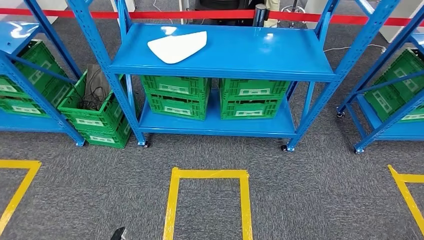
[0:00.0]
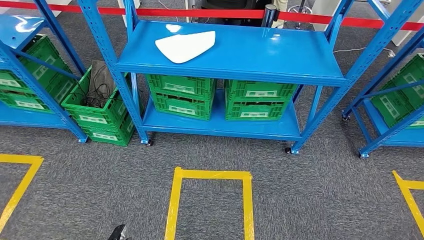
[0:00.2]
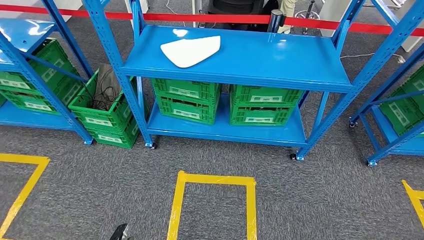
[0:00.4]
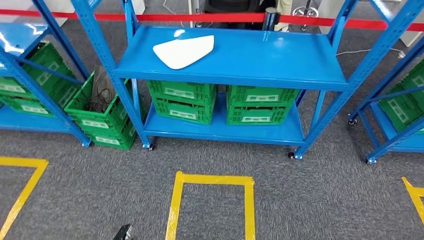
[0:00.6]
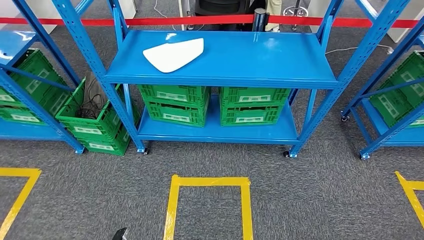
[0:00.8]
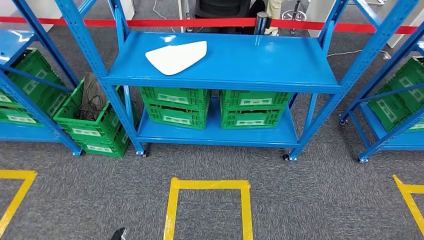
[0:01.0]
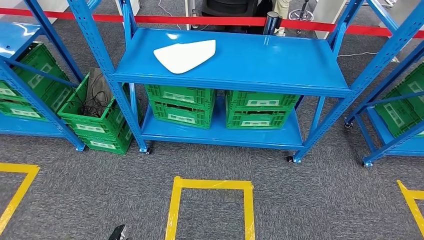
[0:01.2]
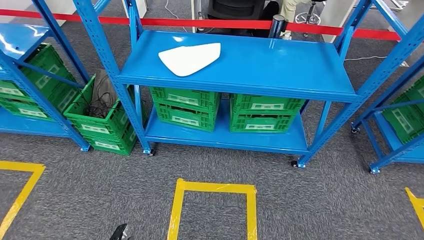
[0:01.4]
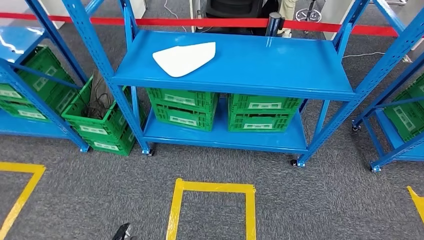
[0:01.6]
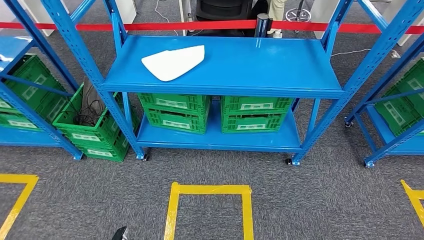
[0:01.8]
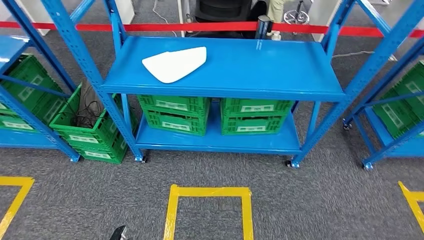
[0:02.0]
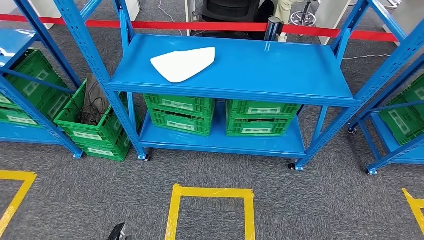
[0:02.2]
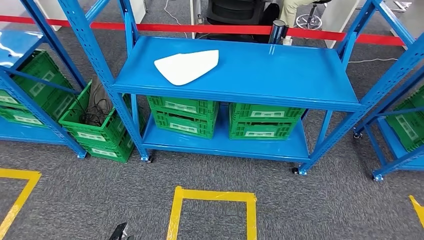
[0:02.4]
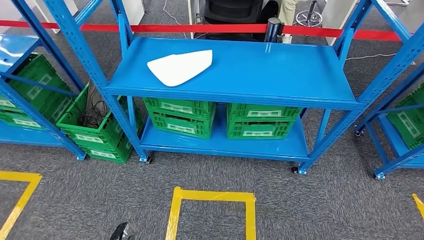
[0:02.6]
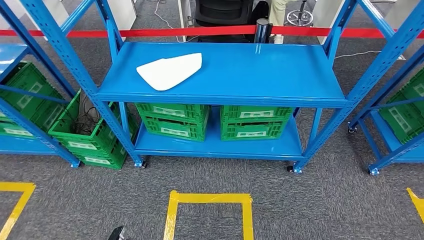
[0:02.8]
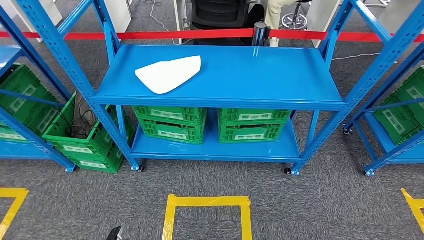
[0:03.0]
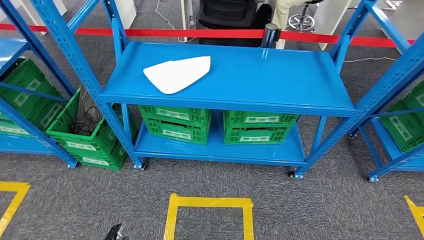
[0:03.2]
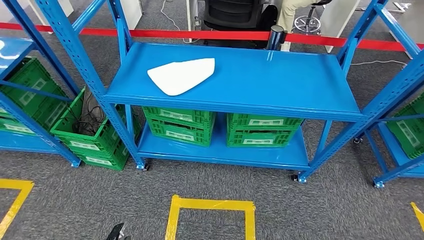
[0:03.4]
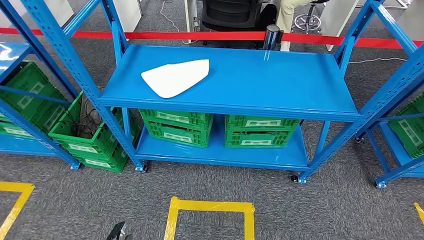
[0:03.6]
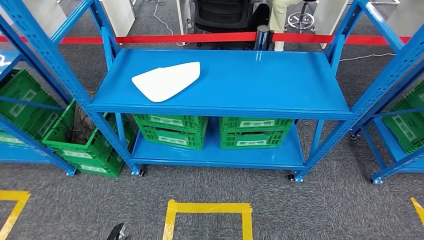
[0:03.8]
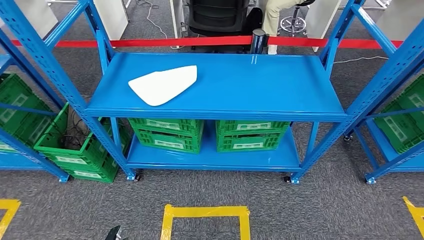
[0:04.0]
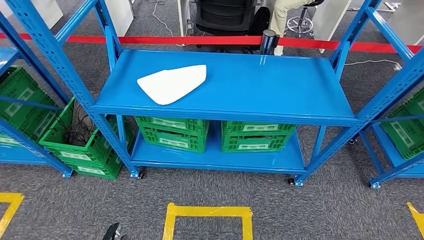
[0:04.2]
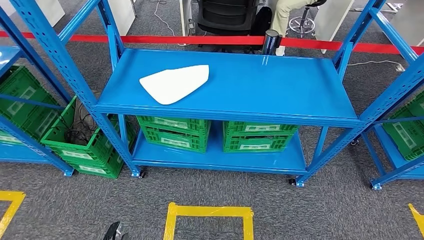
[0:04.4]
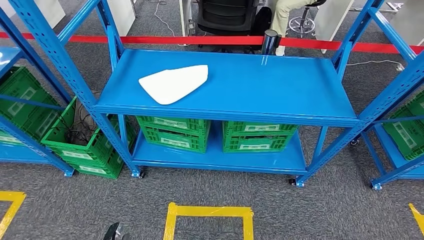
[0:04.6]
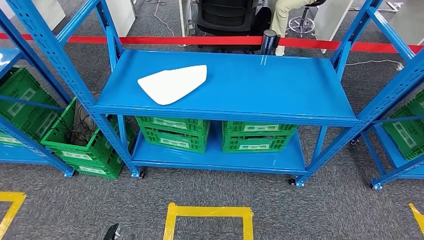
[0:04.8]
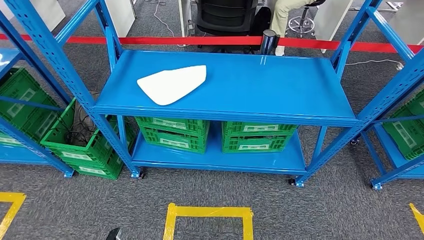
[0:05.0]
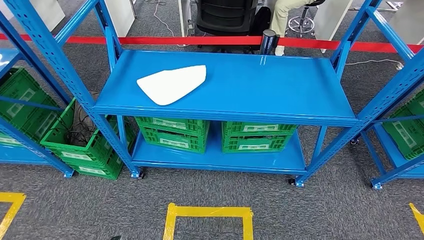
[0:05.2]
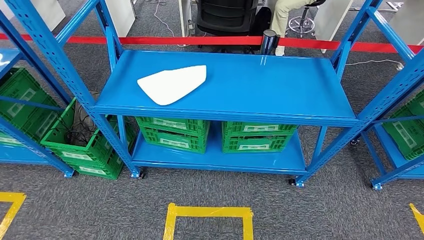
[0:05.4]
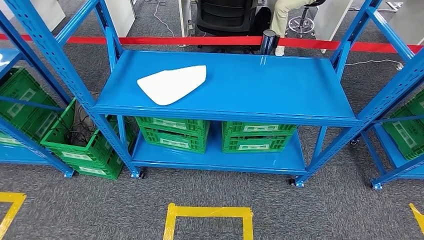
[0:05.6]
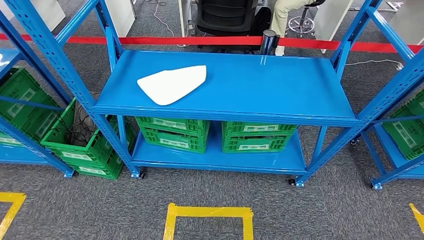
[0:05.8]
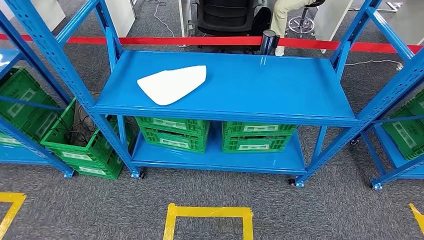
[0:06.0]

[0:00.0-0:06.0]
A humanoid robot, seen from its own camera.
Step, 0:00.0 to 0:05.8: Return to the initial position at the workbench.
0:04.4 to 0:06.0: The right hand goes some 5 cm backward. Meanwhile the left hand heads backward, covering roughly 10 cm.
